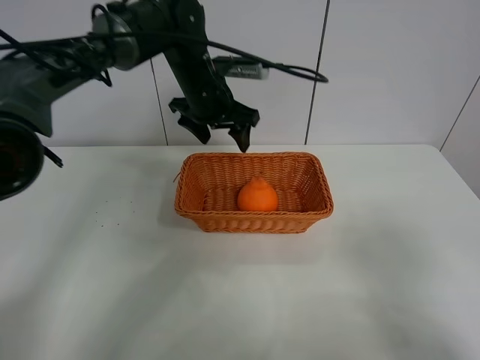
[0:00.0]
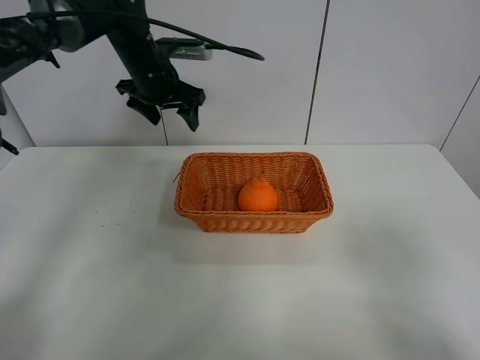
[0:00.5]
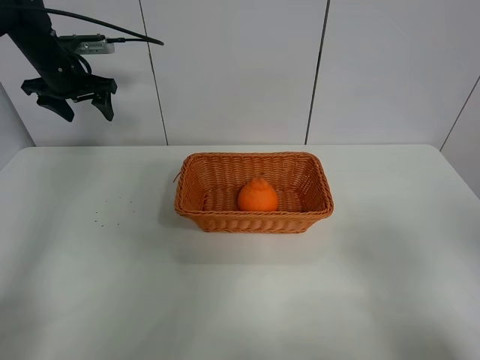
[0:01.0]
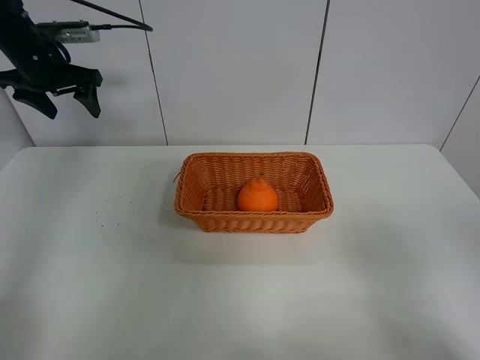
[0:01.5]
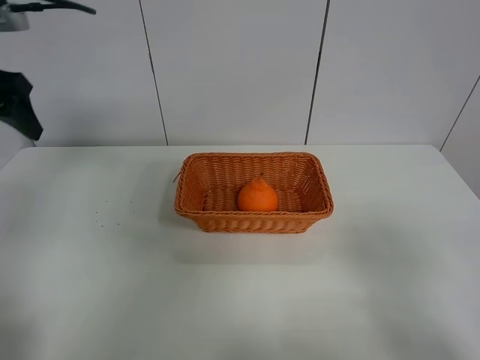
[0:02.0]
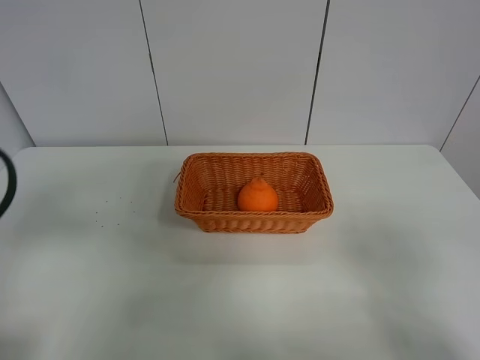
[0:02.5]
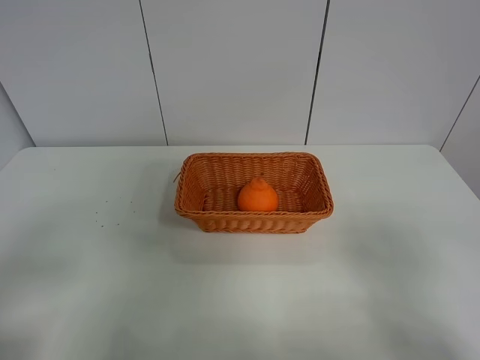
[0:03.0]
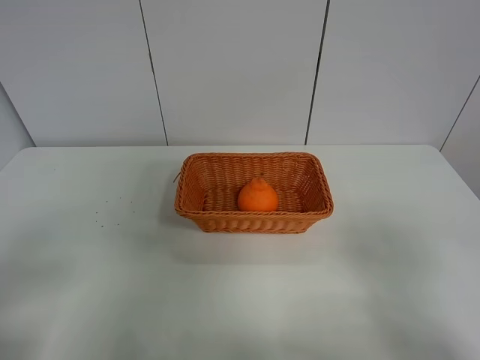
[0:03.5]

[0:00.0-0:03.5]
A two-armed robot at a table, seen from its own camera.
Task of the whole recording: left gripper grabs oranges and puts them in the basket.
0:00.0 to 0:02.0: The left gripper goes about 30 cm to the left, backward and upward.
0:02.0 to 0:03.5: The left gripper is displaced backward by about 25 cm.

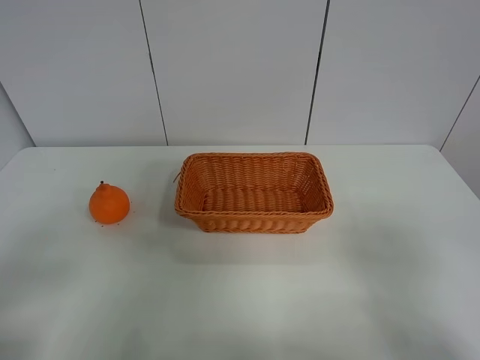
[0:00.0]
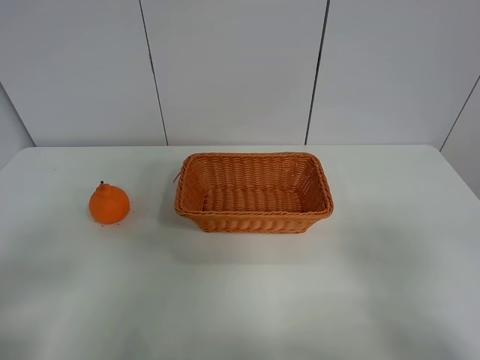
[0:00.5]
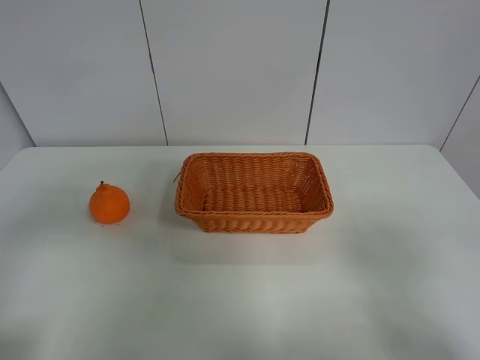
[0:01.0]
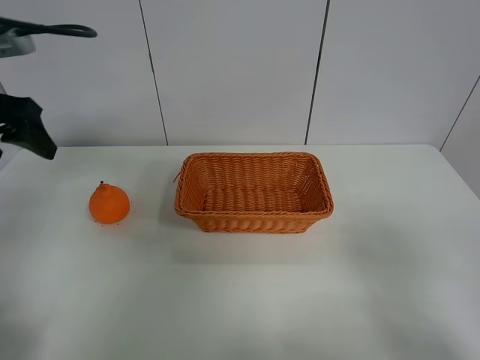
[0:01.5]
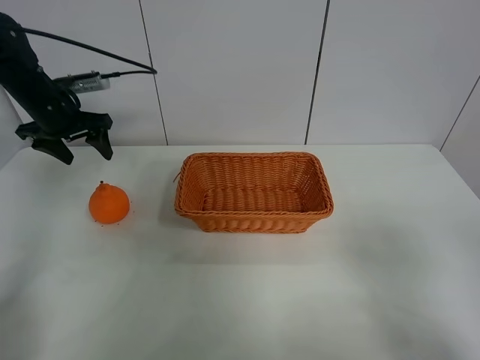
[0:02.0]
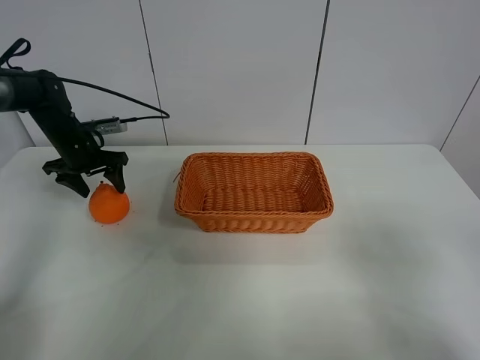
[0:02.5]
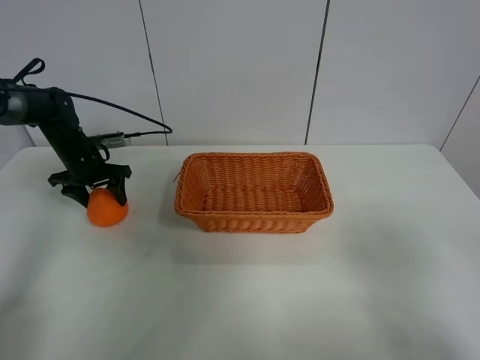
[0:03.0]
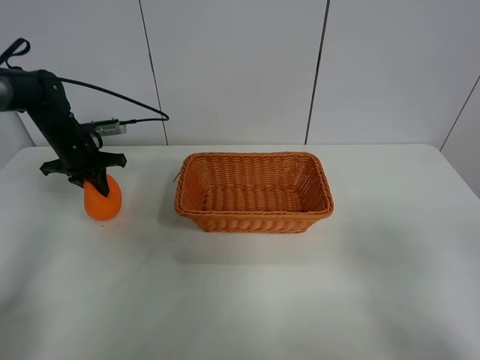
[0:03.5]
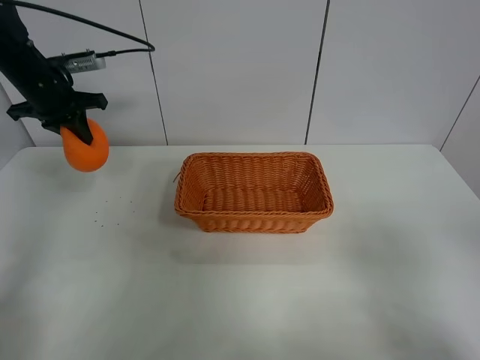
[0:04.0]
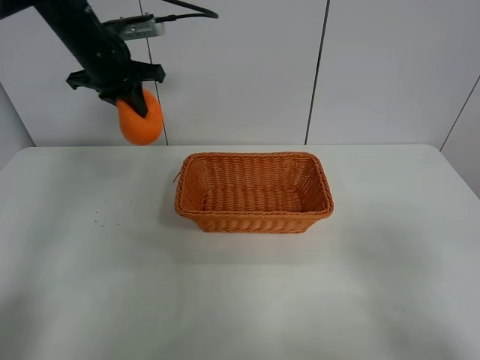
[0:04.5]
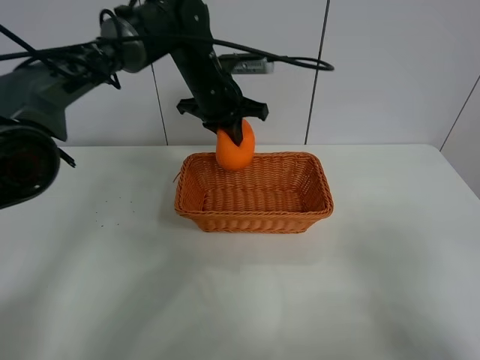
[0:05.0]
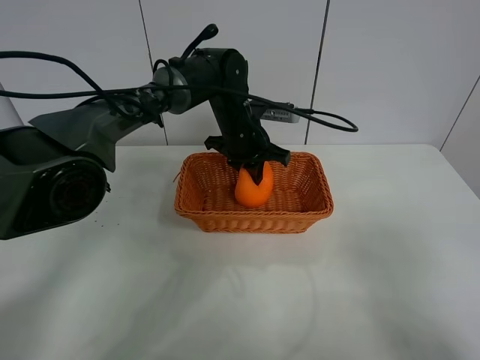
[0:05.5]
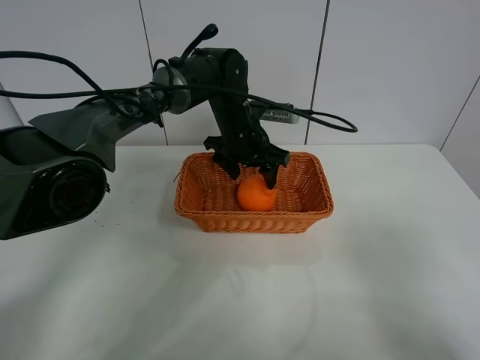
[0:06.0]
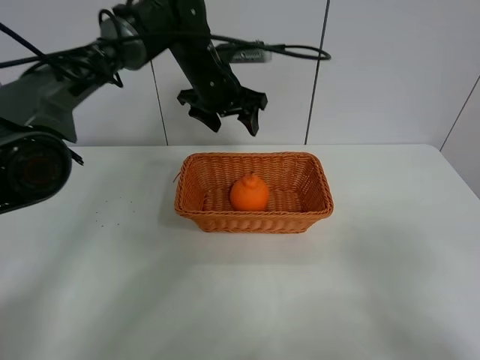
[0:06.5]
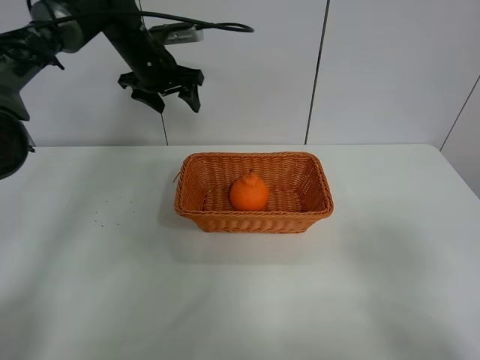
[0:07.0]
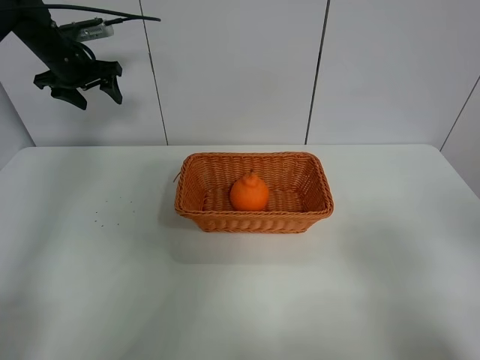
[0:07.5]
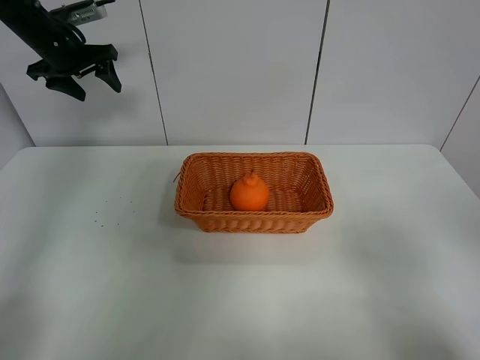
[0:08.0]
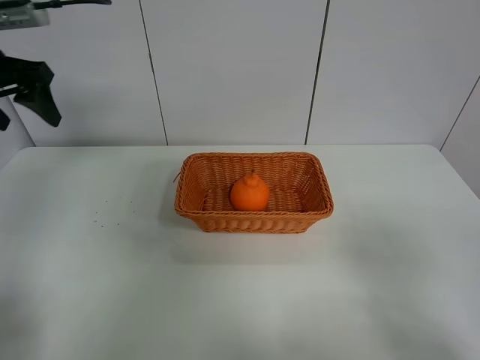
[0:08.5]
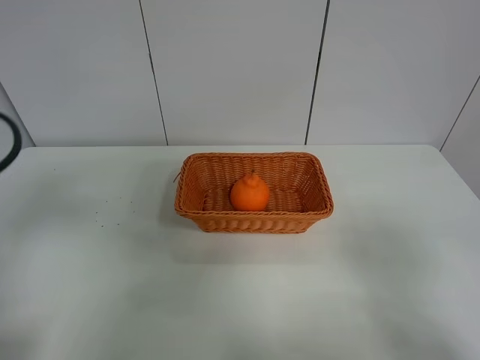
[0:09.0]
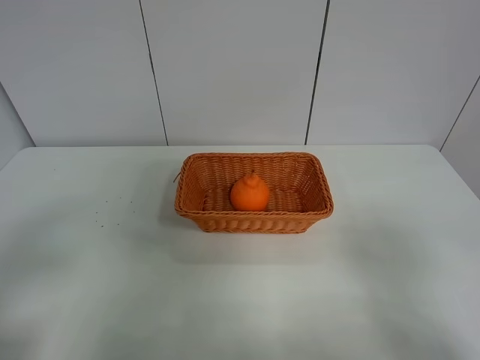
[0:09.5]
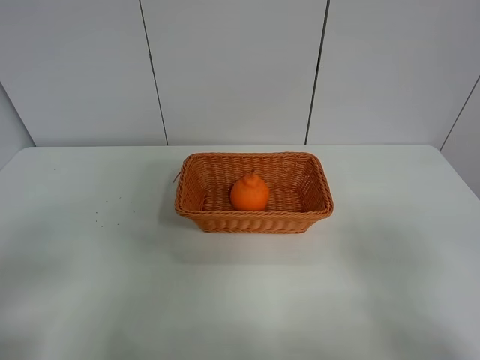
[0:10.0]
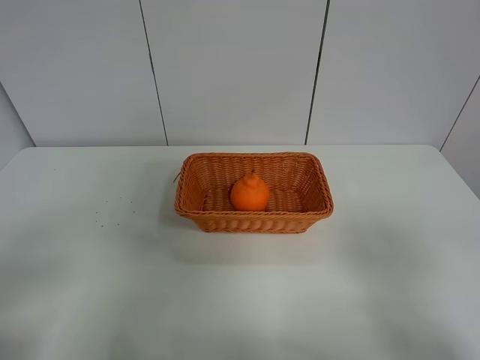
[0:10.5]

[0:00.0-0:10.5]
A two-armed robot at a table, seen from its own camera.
Task of the whole recording: left gripper grabs oranges and puts them in the basket.
Step, 0:00.0 to 0:03.0: Grasp the orange with left gripper.
Step, 0:03.5 to 0:07.0: Place the orange in the basket with left gripper.
0:00.0 to 0:02.0: The left gripper heads forward, covering about 40 cm.
0:02.0 to 0:04.0: The left gripper moves about 10 cm downward and comes back, and closes its fingers.
0:04.0 to 0:06.5: The left gripper is displaced to the right by some 25 cm, and opens.
0:06.5 to 0:08.5: The left gripper moves to the left and backward, about 30 cm.
0:08.5 to 0:10.5: The left gripper goes about 30 cm backward.
